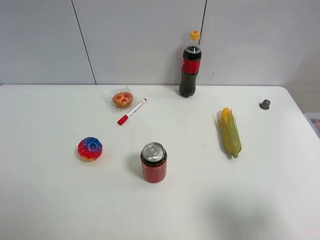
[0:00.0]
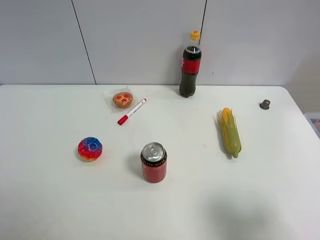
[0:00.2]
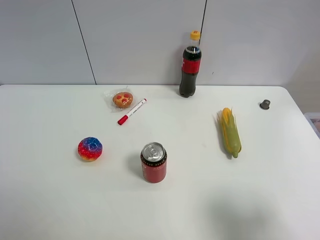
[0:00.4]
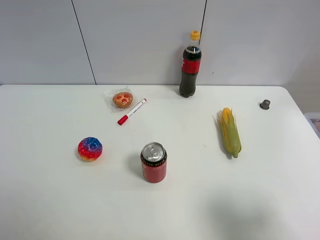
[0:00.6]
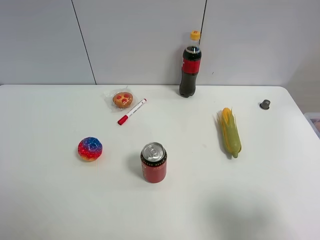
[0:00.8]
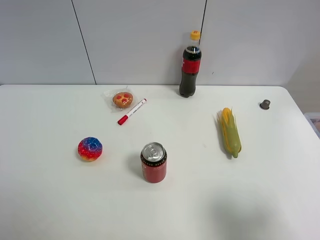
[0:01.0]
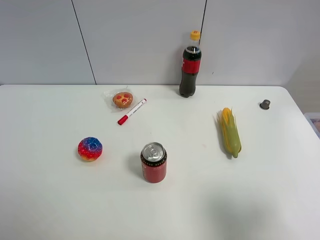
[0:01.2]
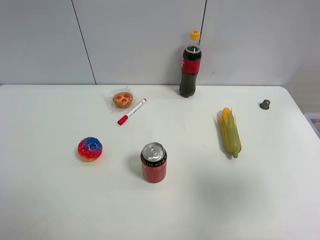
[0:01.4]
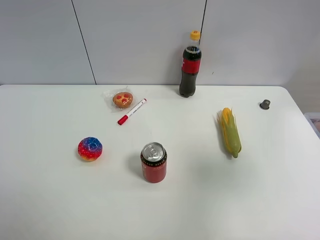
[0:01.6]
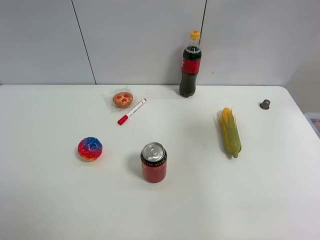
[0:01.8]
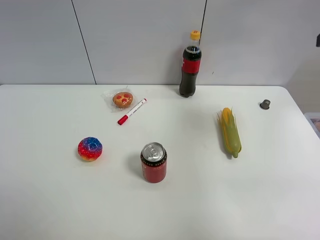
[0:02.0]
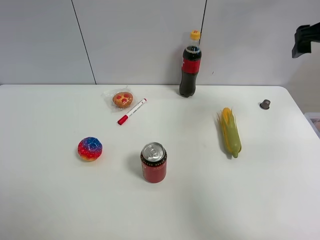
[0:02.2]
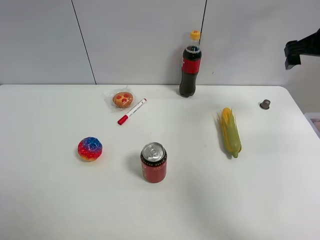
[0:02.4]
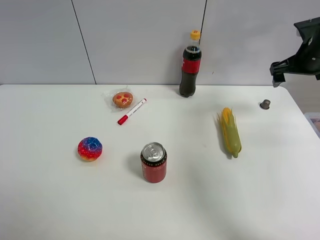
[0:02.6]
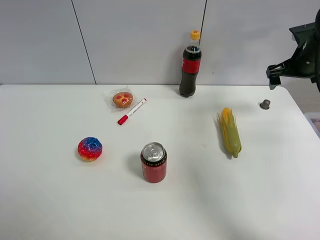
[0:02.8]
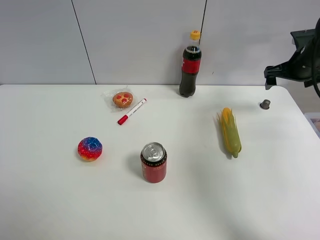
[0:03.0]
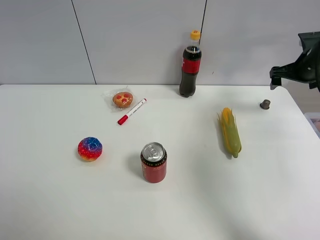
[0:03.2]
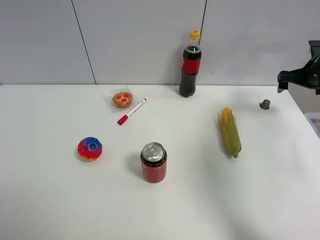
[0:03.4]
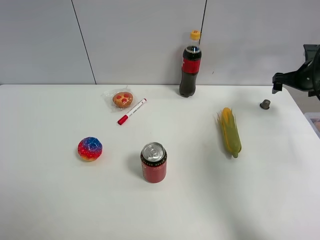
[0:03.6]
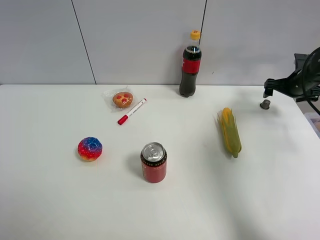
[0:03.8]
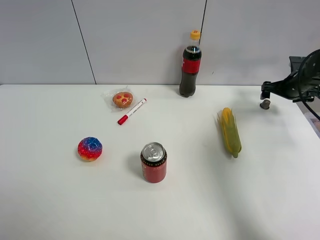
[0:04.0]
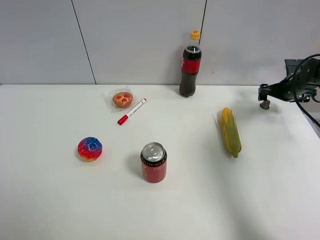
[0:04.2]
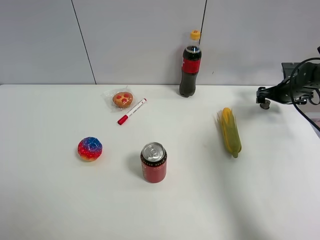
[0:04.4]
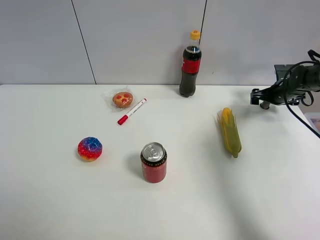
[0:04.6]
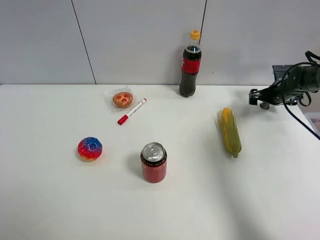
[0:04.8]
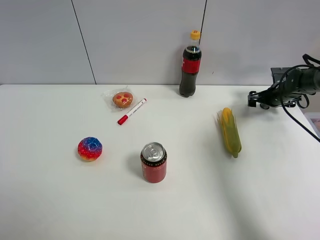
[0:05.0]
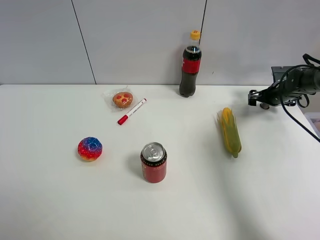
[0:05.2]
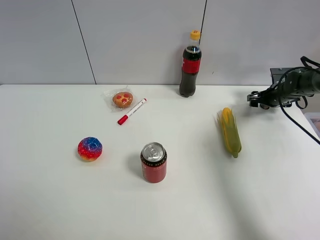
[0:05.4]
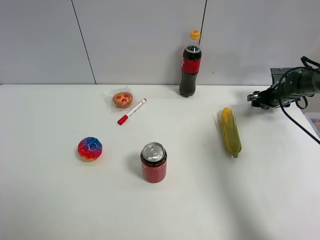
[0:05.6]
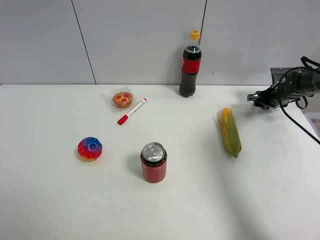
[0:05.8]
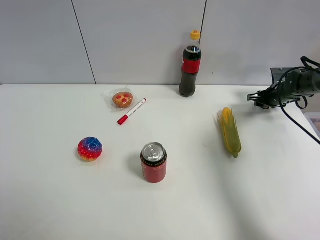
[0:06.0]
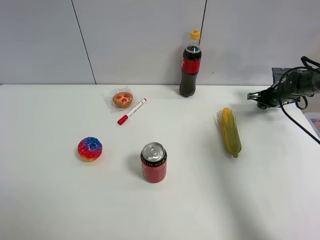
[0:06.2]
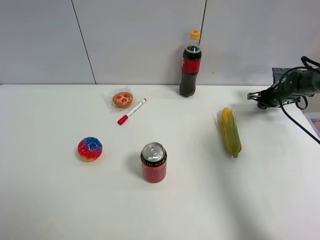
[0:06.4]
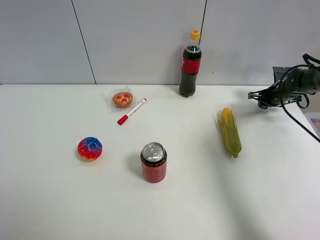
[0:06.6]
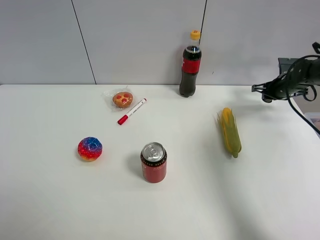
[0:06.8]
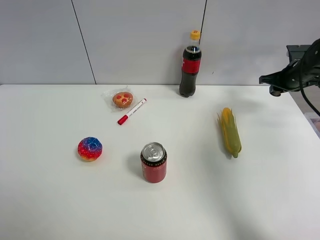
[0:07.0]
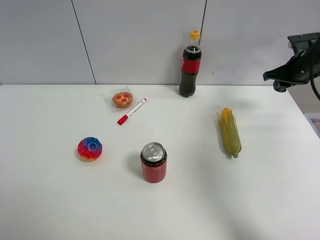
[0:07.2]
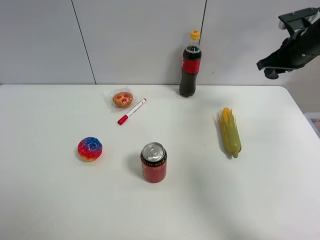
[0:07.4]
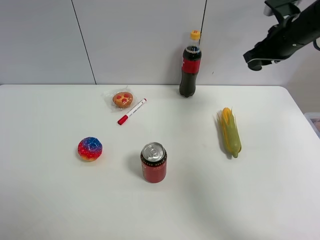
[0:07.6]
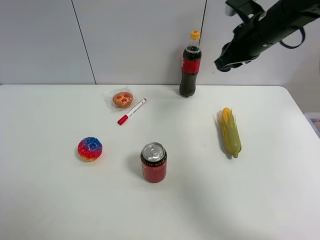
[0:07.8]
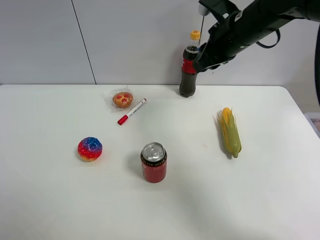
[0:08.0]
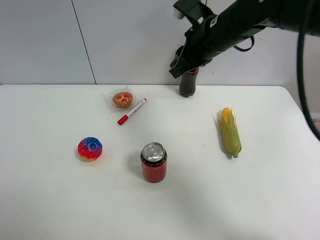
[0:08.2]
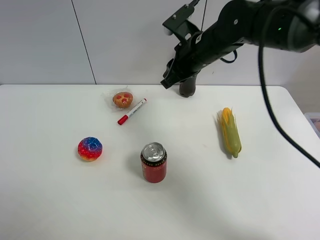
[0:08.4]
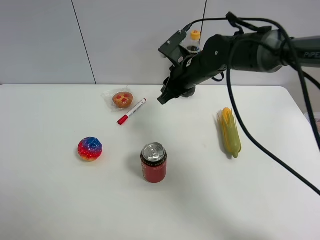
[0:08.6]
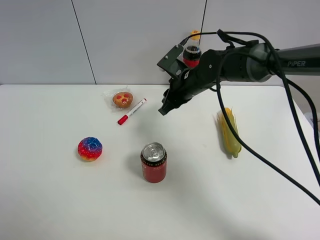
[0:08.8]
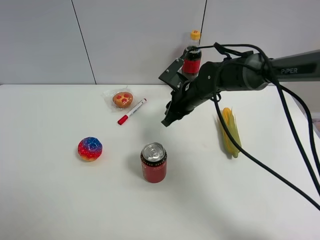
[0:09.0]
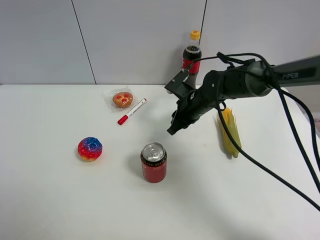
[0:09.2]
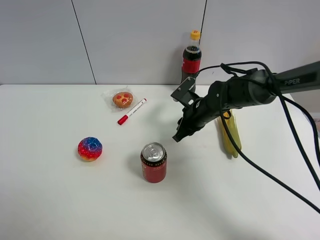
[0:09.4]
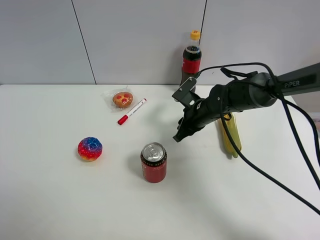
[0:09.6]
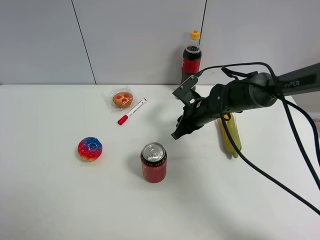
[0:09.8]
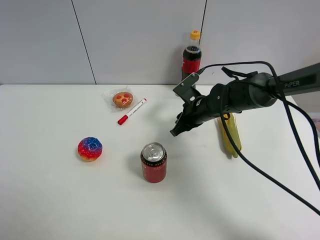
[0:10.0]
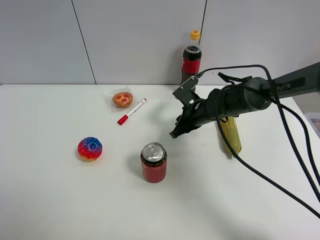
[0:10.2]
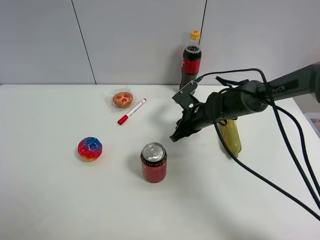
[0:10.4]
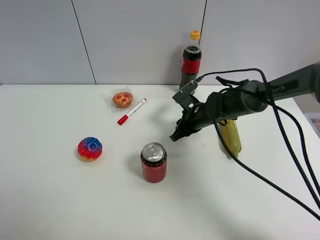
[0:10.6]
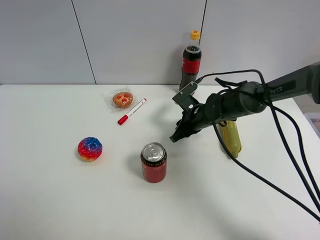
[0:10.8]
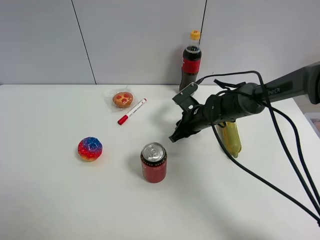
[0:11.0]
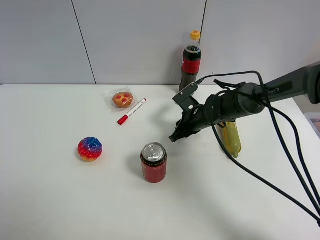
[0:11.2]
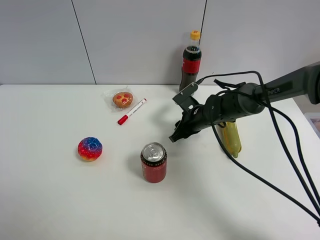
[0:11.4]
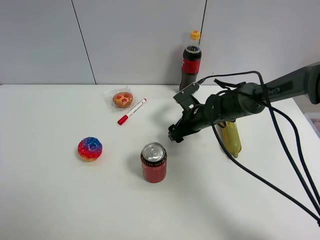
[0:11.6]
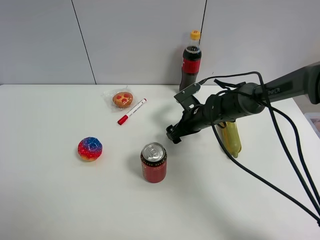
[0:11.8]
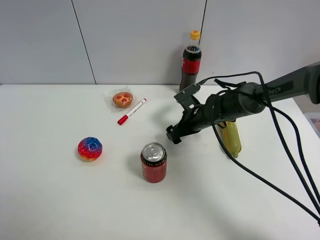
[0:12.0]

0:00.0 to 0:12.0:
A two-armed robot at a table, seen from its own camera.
Task of the whole recording: the gripper move the object.
Step, 0:00.0 to 0:06.2: Grasp the coffee capsule with the right gripper.
0:00.0 to 0:01.6: The right gripper moves upward and forward, about 15 cm.
0:01.6 to 0:03.0: The right gripper goes some 35 cm forward and downward.
0:03.0 to 0:04.4: The right gripper travels downward by some 10 cm.
0:04.4 to 0:06.0: The right gripper closes.
0:06.0 to 0:07.6: The right gripper goes about 25 cm upward and to the left.
0:07.6 to 0:09.0: The right gripper shifts some 25 cm to the left and downward.
0:09.0 to 0:10.4: The right gripper moves downward, some 5 cm.
0:10.4 to 0:12.0: The right gripper opens its fingers.

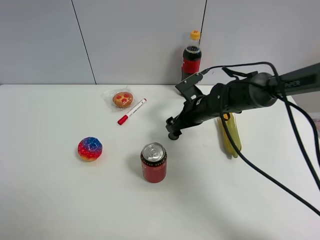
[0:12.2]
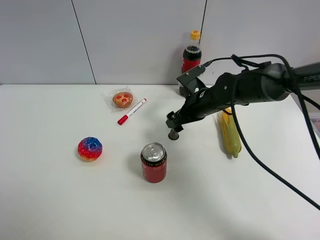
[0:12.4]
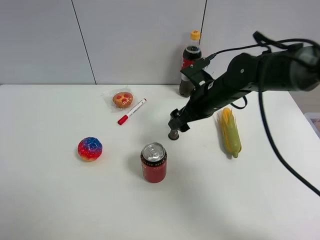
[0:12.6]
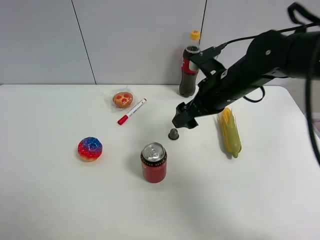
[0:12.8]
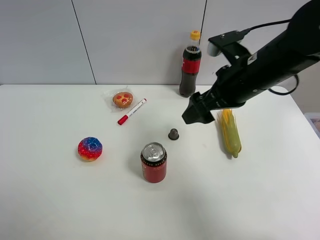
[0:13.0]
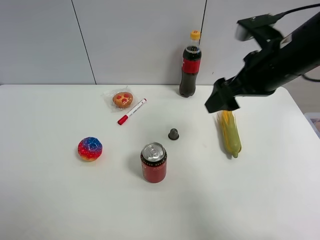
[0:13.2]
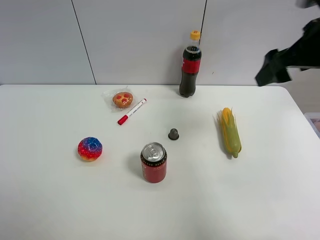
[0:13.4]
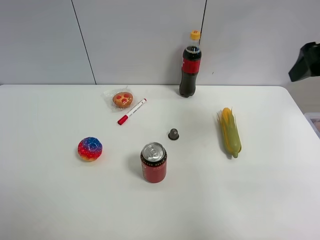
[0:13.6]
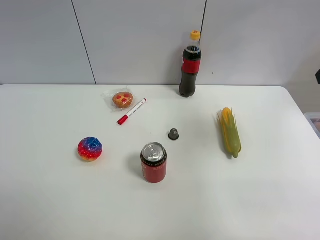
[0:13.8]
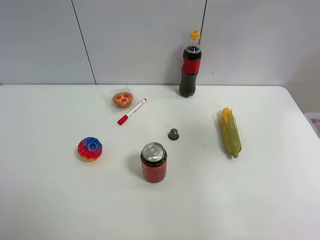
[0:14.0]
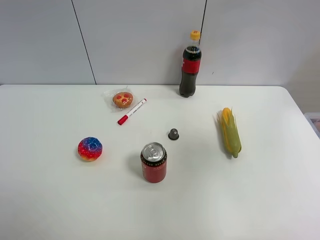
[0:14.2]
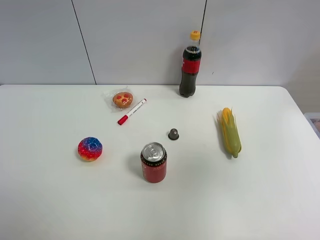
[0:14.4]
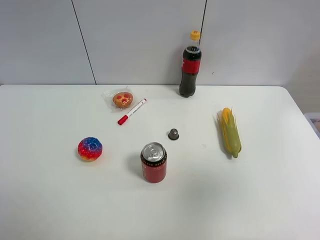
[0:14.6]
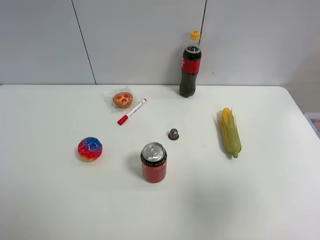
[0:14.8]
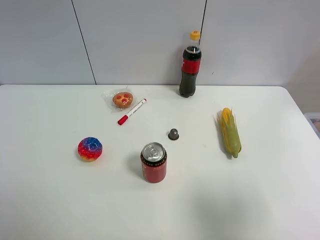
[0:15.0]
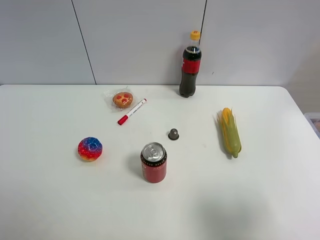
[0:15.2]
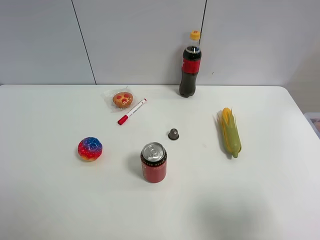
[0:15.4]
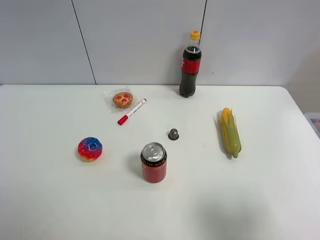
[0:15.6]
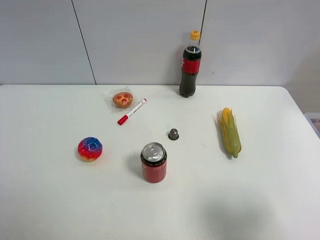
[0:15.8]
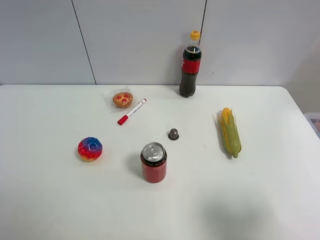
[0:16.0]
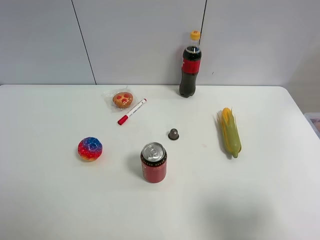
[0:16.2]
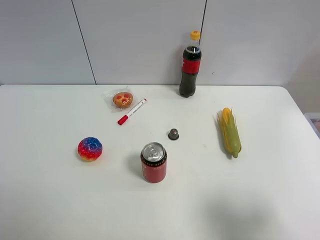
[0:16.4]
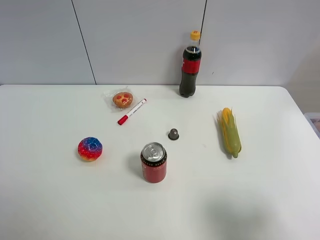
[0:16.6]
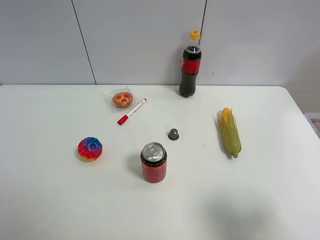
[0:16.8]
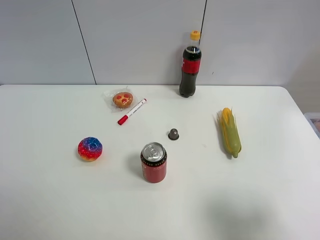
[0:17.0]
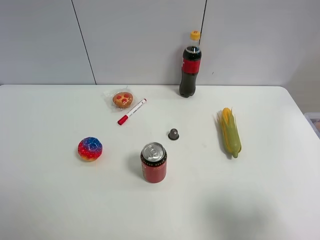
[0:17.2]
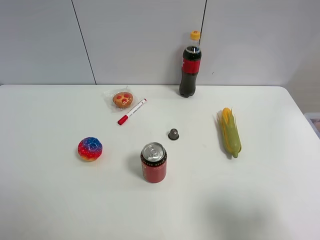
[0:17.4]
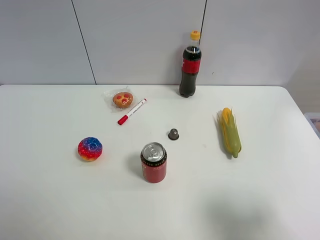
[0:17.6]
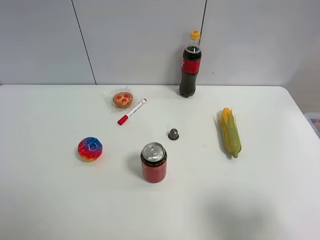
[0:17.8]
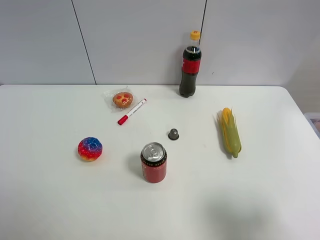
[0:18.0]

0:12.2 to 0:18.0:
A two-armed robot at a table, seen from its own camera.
Task of the whole recording: the gripper move the object.
0:12.2 to 0:13.6: The right gripper travels upward, to the right and backward by about 35 cm.
0:13.6 to 0:15.0: The right gripper moves backward, about 25 cm.
0:15.0 to 0:16.6: The right gripper moves downward, about 5 cm.
0:16.6 to 0:18.0: Both grippers stay about where they are.

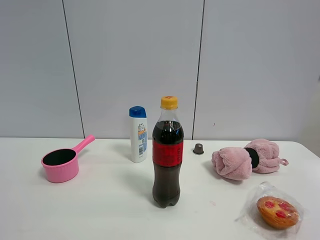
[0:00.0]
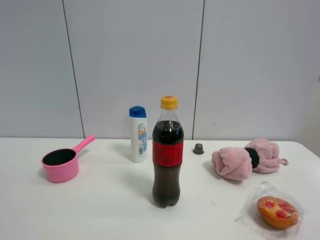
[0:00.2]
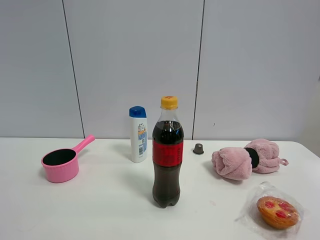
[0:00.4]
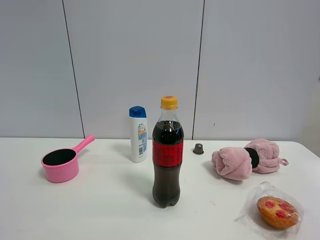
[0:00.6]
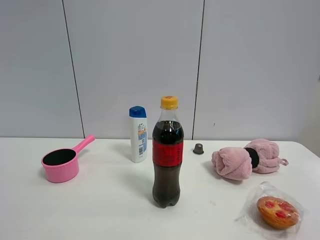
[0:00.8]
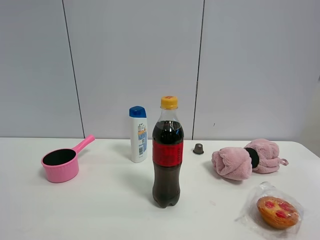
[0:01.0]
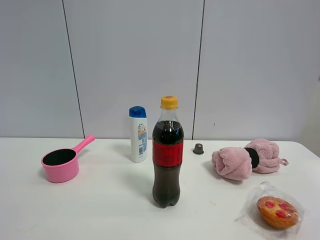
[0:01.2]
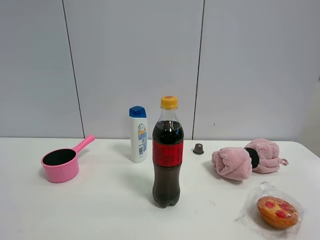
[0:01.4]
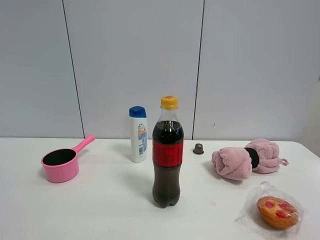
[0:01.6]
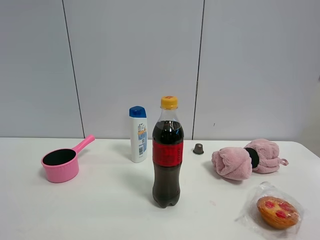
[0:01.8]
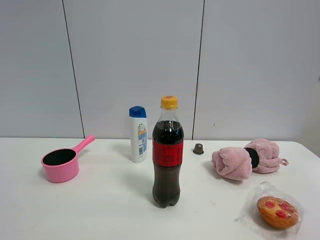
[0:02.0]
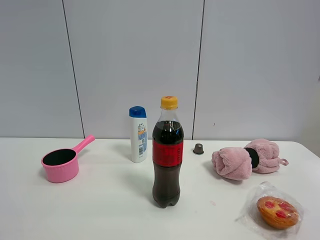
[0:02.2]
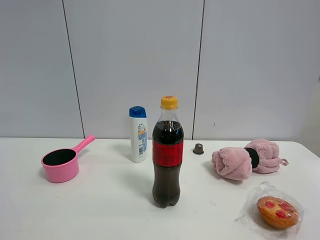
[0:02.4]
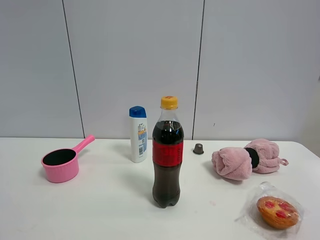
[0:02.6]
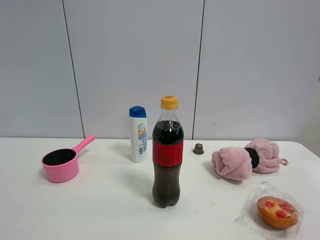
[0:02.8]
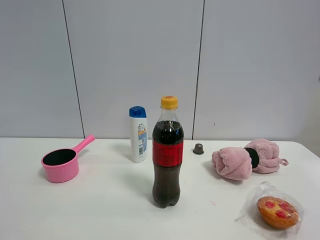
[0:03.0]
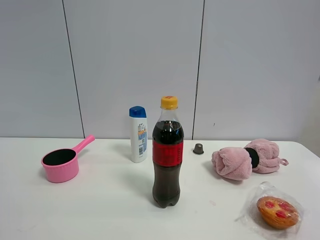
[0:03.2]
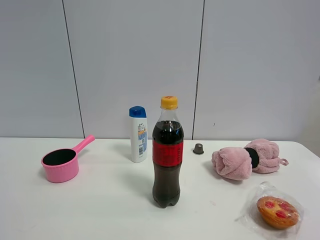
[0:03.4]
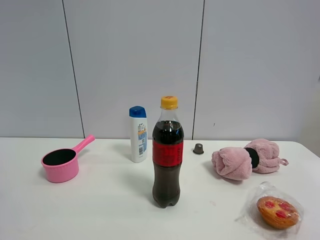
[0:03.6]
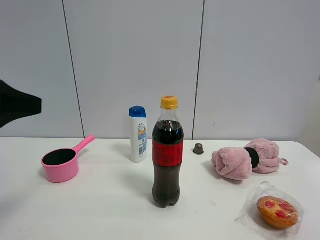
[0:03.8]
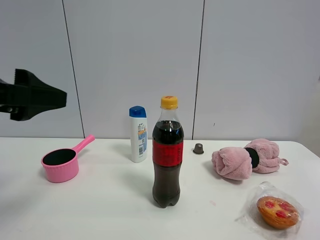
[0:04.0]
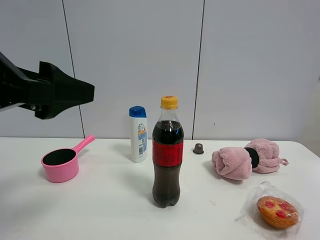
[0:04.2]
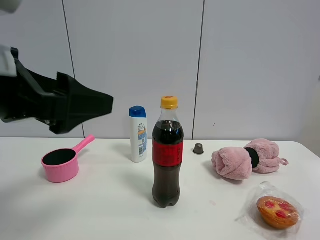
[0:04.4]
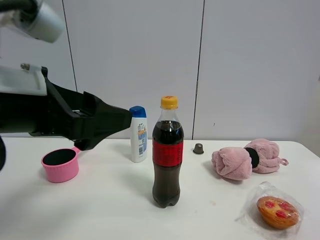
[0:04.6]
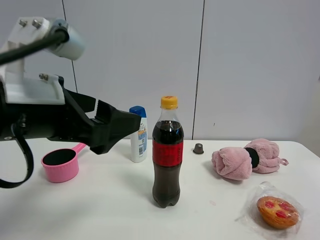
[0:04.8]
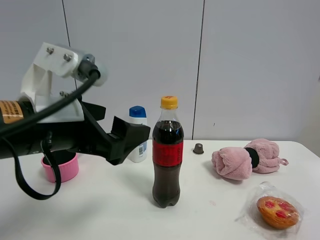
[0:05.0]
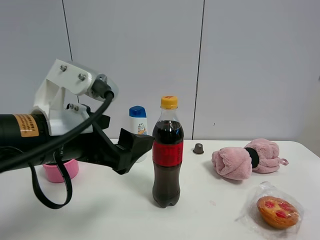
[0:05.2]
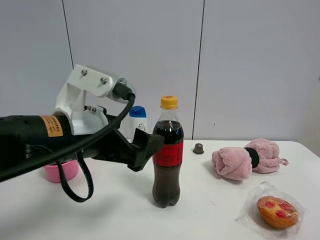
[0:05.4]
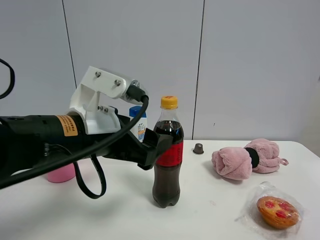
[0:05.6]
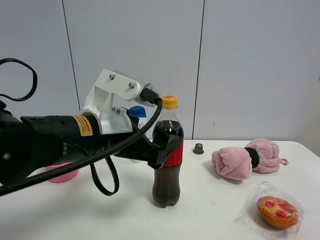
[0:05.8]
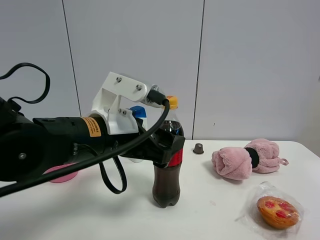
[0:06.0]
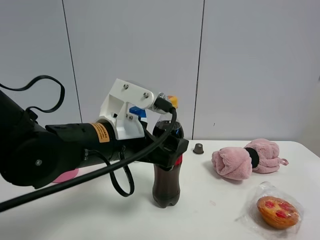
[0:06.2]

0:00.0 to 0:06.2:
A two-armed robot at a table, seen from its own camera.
Task of the whole recording: the gripper move the object.
0:00.0 to 0:01.6: Both grippers stay about where they are.
0:03.2 to 0:04.6: The left gripper heads to the right and forward, covering about 20 cm.
0:04.6 to 0:06.2: The left gripper travels downward, forward and to the right by about 15 cm.
